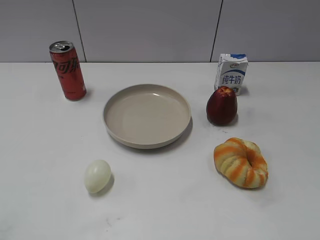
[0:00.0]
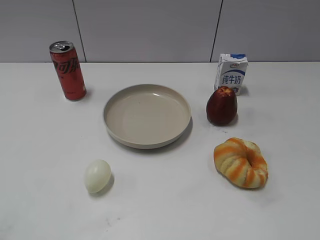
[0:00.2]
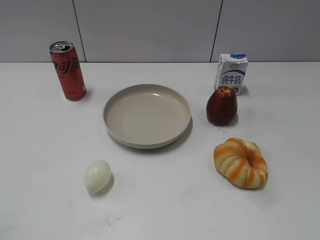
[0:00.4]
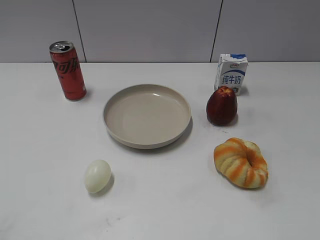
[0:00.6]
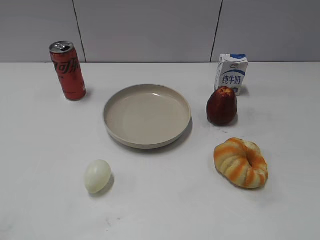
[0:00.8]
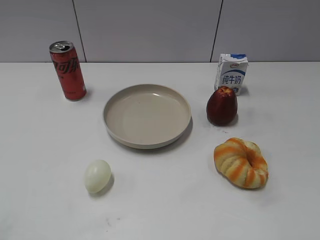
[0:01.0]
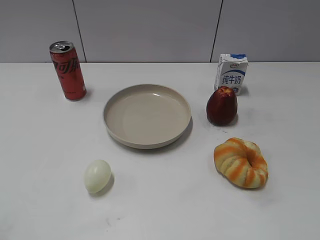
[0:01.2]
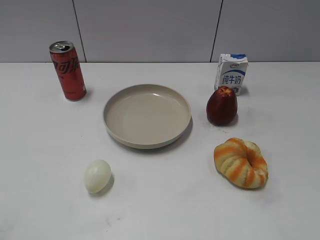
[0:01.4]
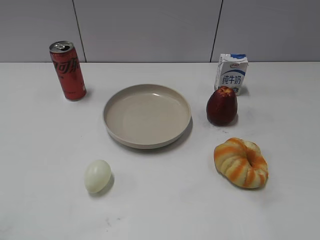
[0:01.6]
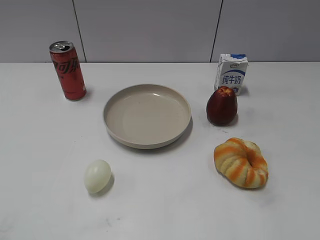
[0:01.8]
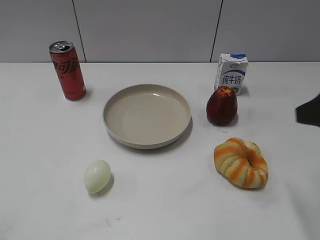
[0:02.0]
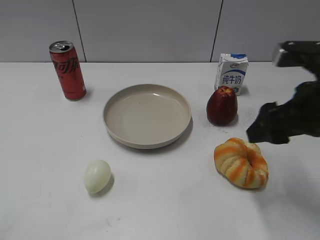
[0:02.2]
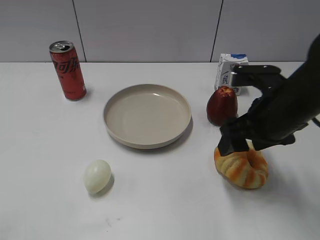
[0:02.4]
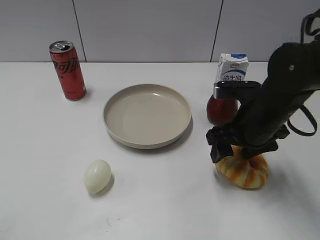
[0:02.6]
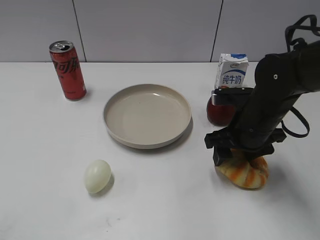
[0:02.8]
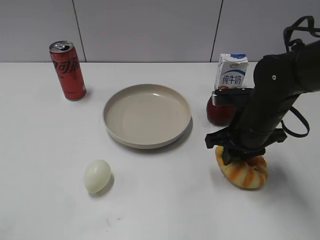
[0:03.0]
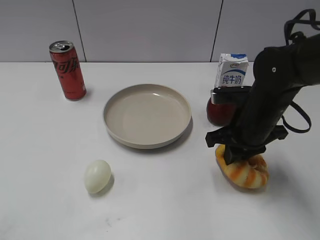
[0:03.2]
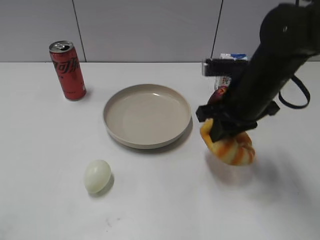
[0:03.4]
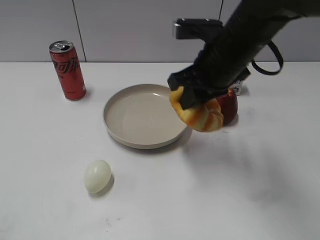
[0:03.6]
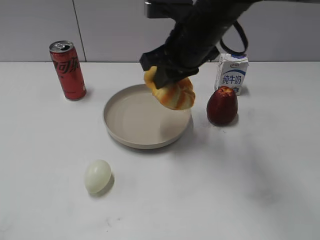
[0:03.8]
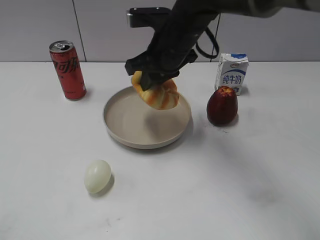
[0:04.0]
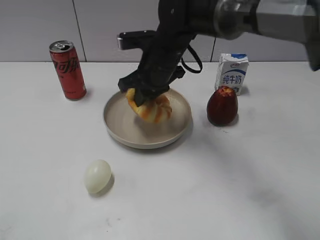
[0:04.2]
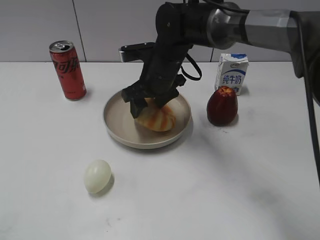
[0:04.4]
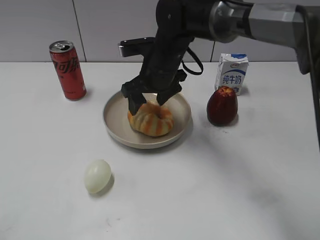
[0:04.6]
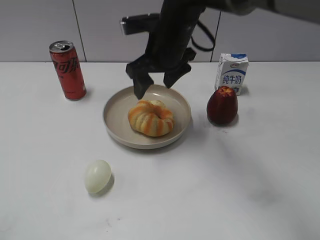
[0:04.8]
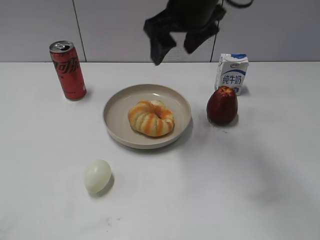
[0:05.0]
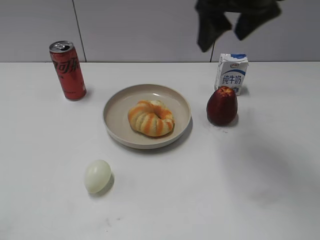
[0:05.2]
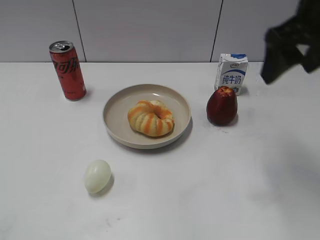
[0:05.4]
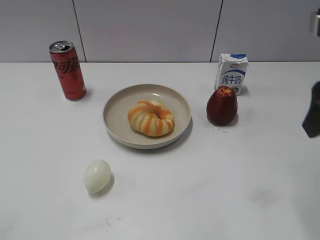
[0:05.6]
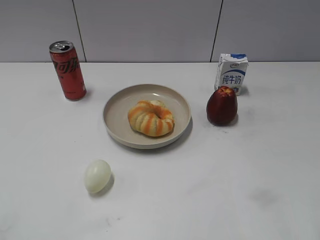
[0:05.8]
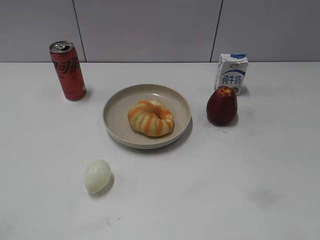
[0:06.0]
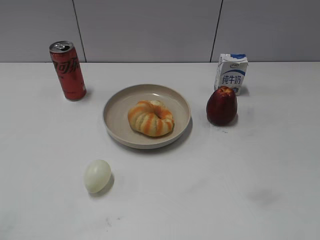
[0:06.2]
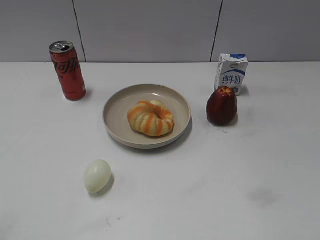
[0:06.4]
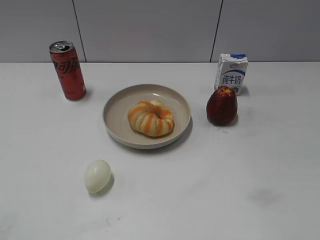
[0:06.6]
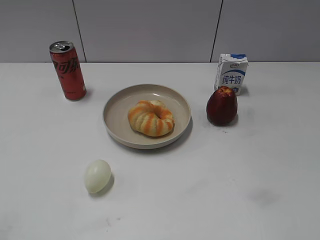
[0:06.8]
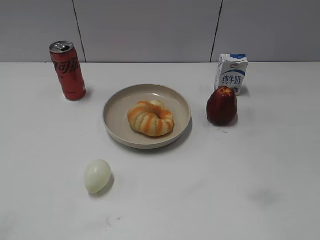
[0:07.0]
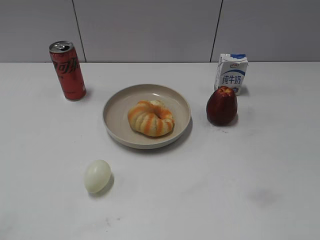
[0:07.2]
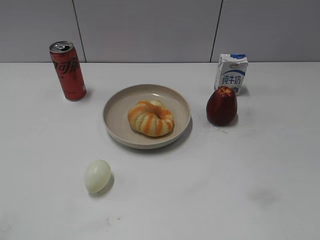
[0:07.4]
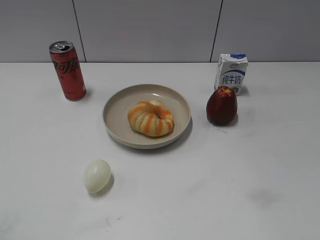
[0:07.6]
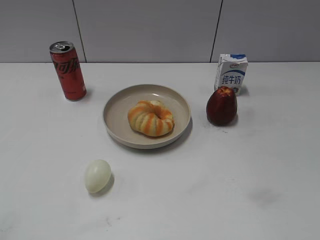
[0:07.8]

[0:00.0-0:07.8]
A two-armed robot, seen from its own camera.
Step, 0:01.0 to 0:03.0: Grasp the round bread with right gripper.
Step, 0:03.2 to 0:04.8: Place the round bread on the plate with right gripper.
0:01.6 to 0:03.2: The right gripper moves forward, to the left and downward, some 25 cm, and closes its fingers.
0:03.2 to 0:04.6: The right gripper goes some 15 cm to the left and forward, and opens its fingers.
0:04.6 to 0:06.2: The right gripper shifts roughly 40 cm backward and to the right.

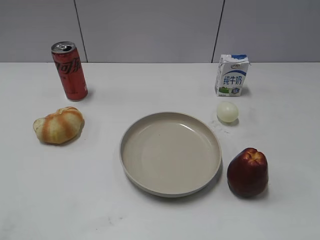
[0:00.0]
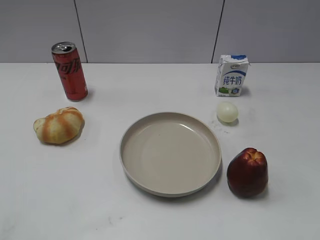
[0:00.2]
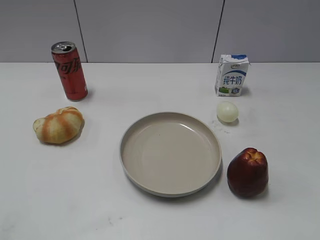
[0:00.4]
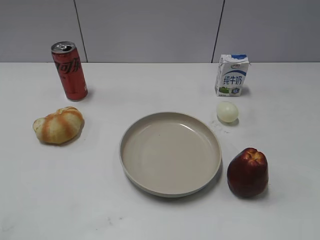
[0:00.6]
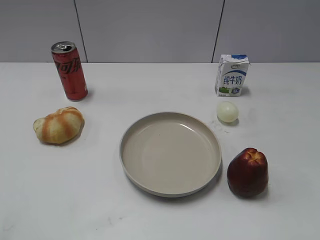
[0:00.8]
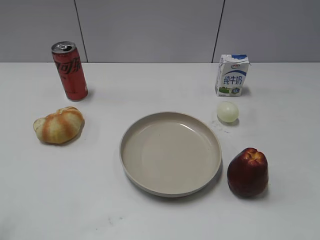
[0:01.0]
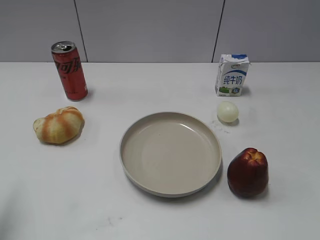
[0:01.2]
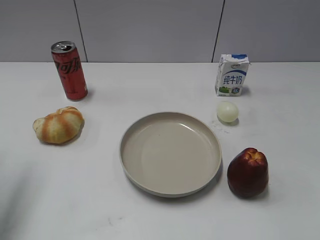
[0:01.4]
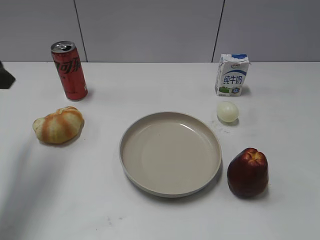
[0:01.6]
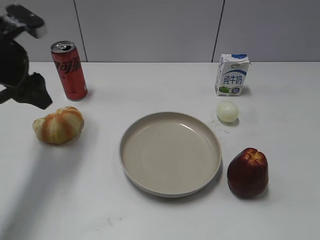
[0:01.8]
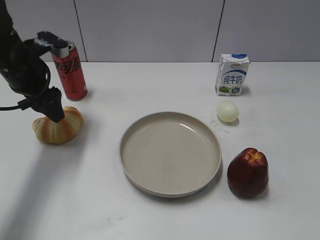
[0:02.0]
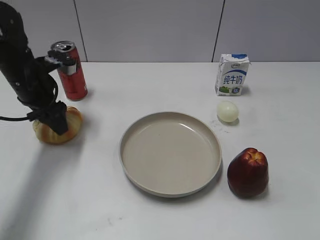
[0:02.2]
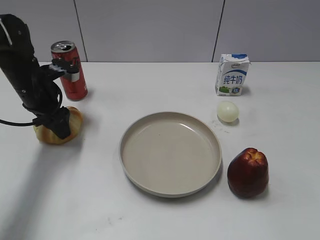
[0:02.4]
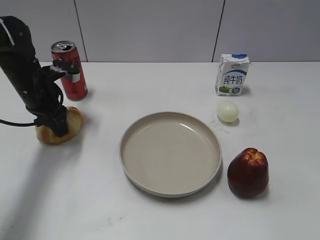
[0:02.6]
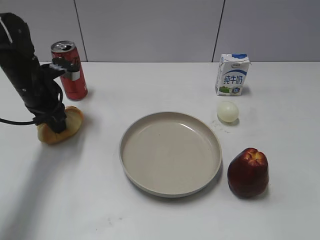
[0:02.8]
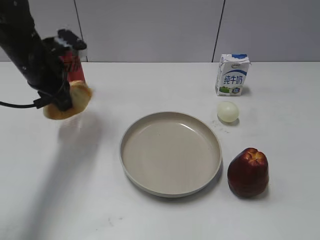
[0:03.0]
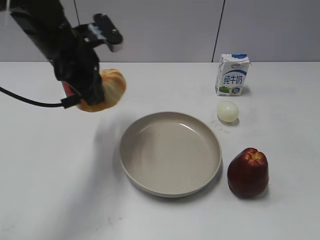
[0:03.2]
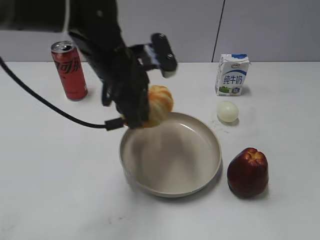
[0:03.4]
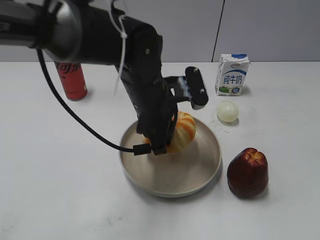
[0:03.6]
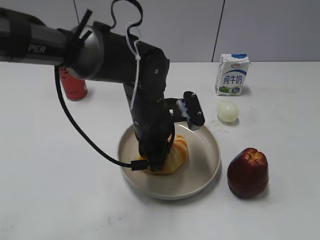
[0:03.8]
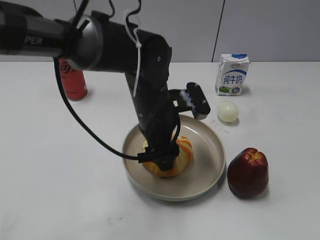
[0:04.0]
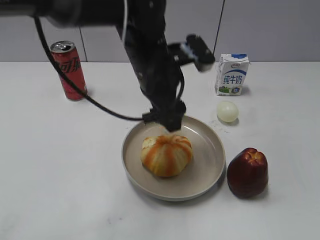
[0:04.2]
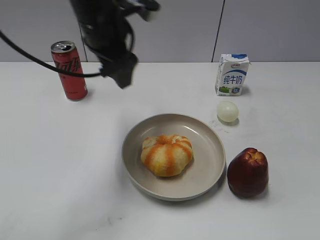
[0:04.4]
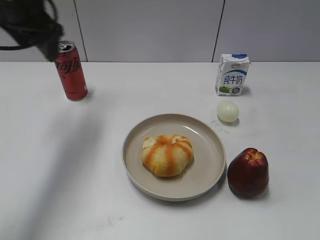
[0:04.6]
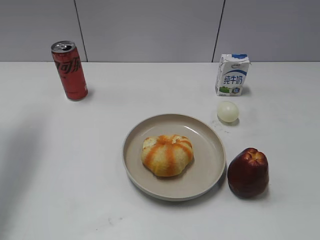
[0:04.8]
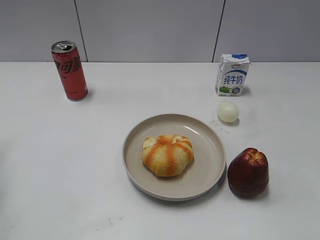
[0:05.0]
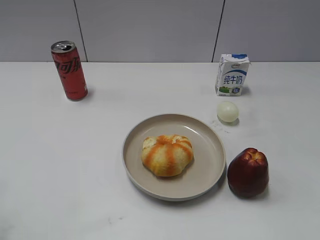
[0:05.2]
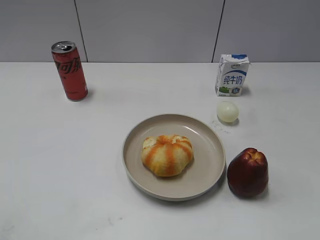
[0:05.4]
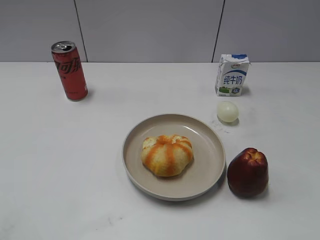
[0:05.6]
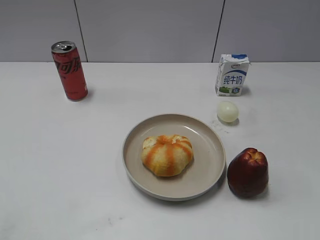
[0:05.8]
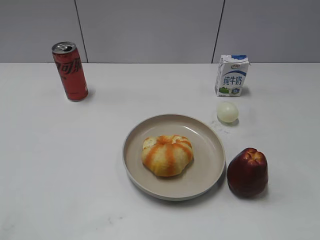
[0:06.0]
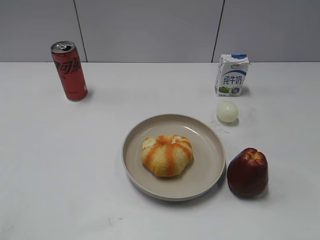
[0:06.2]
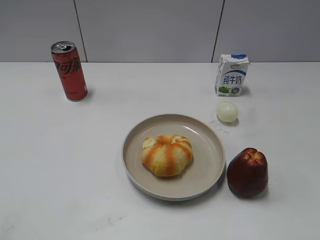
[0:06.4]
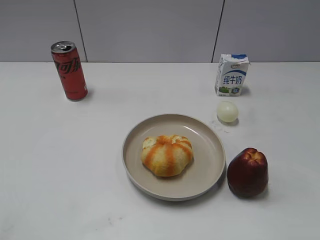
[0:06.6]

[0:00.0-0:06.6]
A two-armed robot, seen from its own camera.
Step, 0:00.8 to 0:02.6: Grasp the round bread with left gripper.
Step, 0:03.0 to 0:04.2: Place the round bread on the plate with left gripper.
0:01.6 to 0:03.2: The left gripper is displaced to the right by some 15 cm, and closes its fingers.
0:03.2 to 0:05.0: The left gripper goes roughly 25 cm to the left, and opens.
